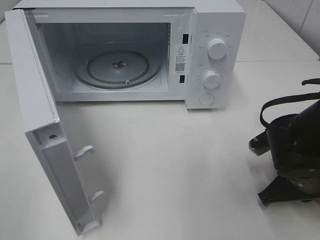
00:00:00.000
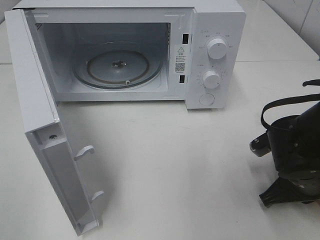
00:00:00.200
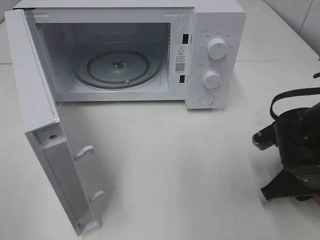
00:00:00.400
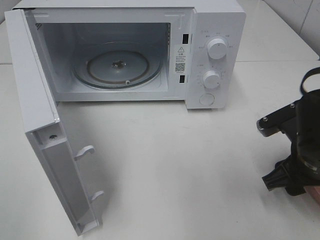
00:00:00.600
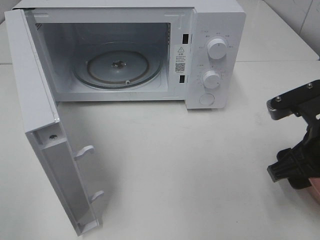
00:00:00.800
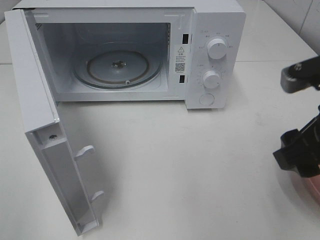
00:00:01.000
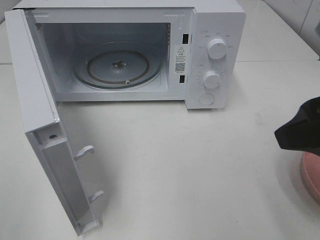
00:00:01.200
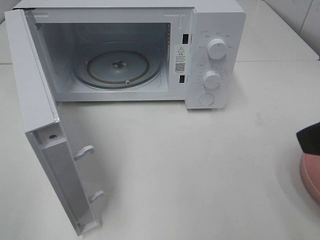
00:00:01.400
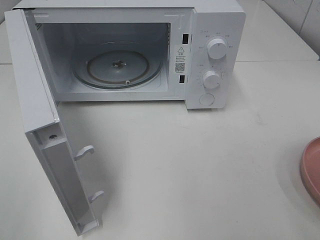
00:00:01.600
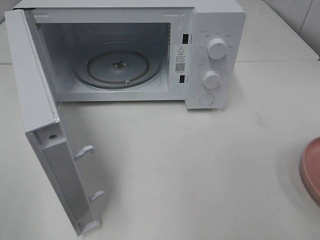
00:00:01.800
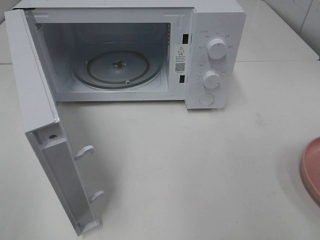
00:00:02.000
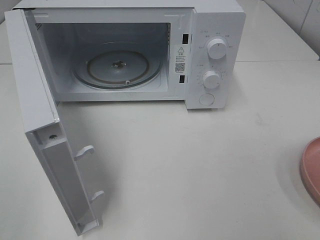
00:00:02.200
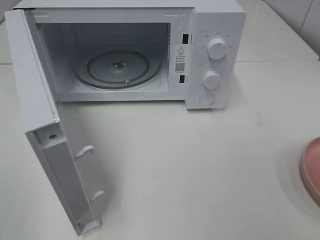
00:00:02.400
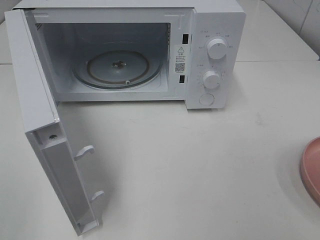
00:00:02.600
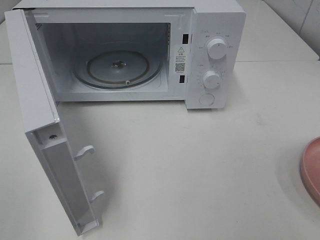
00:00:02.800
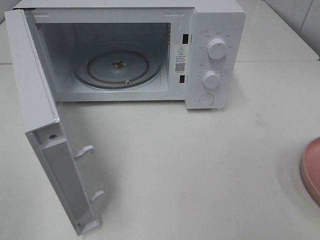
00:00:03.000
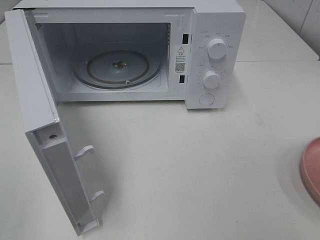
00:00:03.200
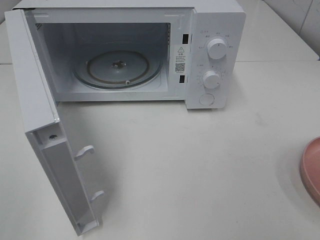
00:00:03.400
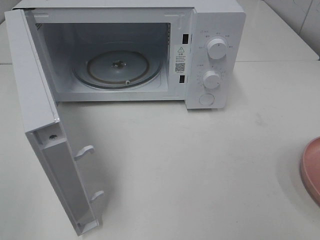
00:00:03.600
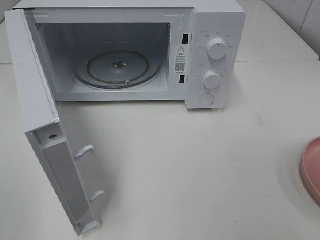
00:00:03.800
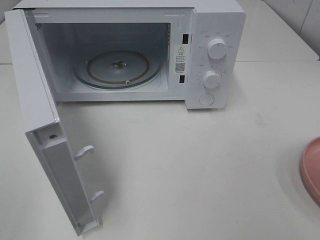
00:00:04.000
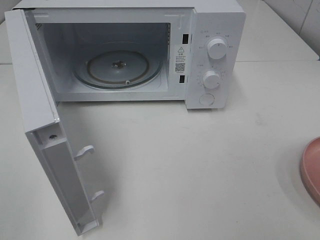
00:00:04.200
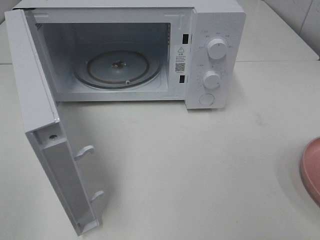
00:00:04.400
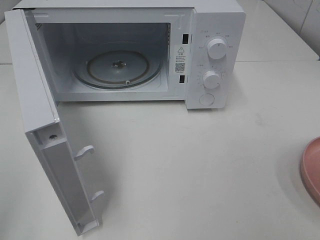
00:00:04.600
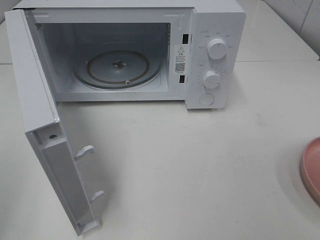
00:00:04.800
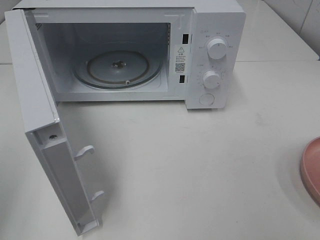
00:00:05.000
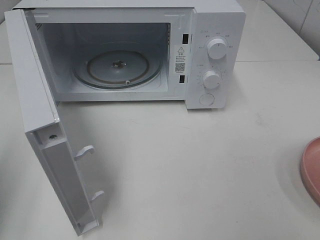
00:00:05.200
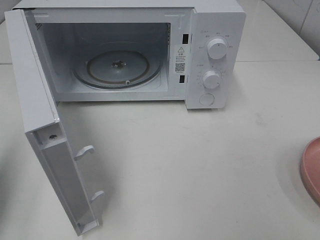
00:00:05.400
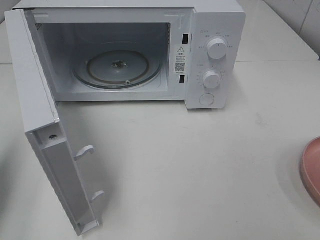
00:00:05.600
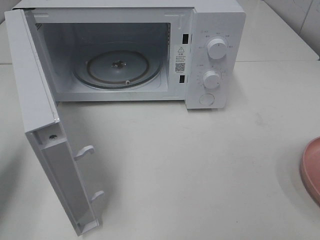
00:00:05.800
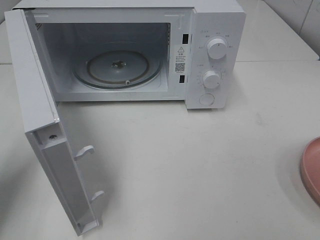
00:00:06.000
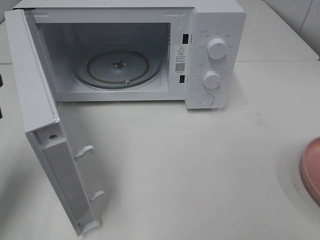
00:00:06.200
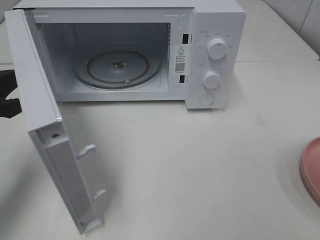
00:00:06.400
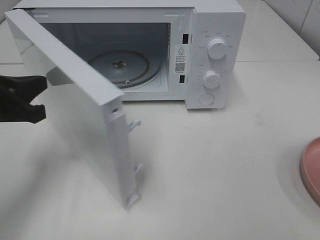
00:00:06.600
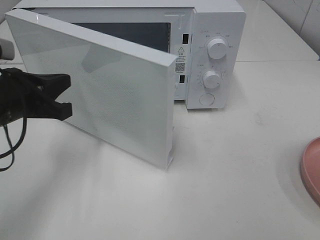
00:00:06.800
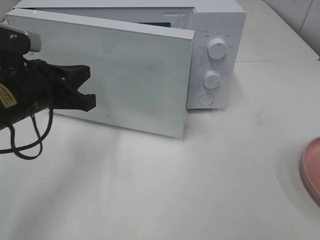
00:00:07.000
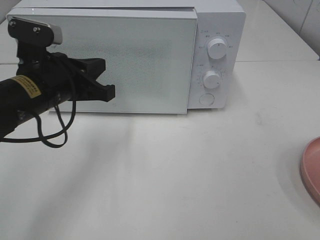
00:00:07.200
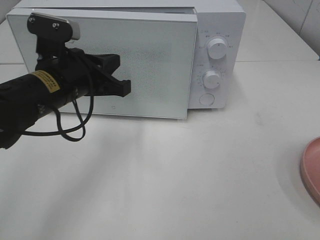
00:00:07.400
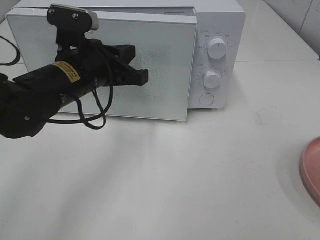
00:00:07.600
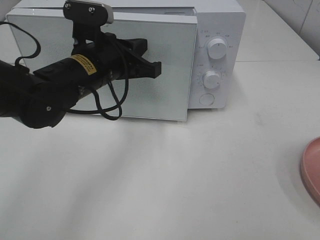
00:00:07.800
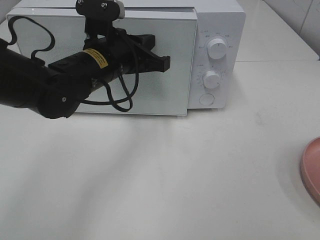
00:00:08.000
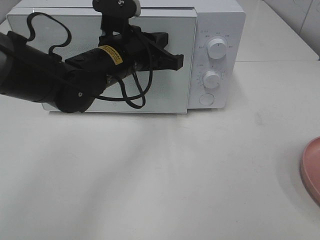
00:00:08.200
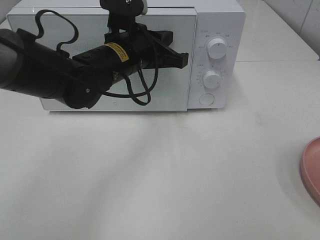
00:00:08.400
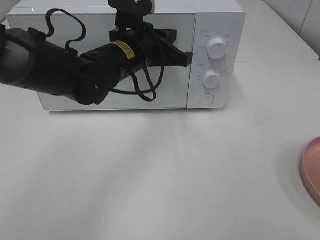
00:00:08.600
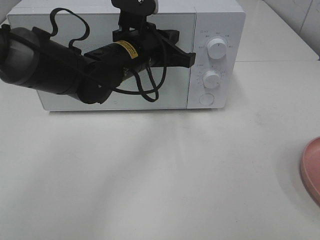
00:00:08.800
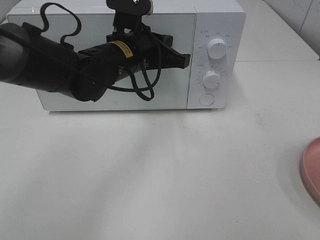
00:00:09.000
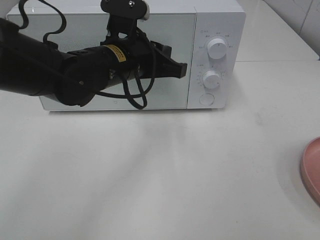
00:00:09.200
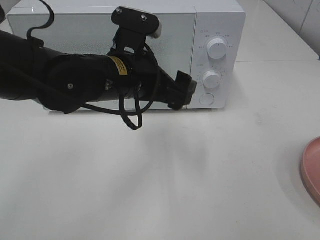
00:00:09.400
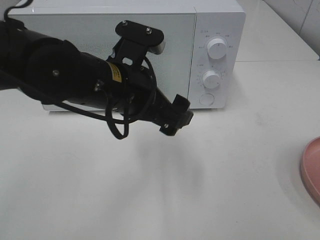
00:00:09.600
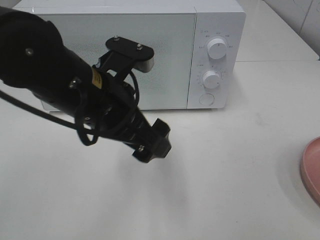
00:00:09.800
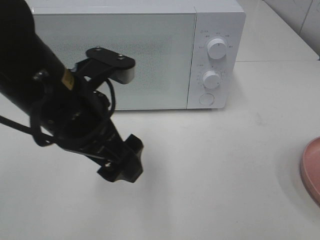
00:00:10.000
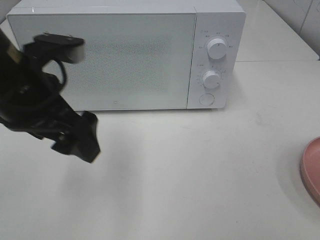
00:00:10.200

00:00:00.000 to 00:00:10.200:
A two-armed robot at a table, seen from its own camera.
Task of the whole recording: Heat the burger.
Step, 00:00:00.600 to 00:00:09.000: Left hand: close the microwave door.
00:00:00.000 to 00:00:01.400: The right gripper goes approximately 25 cm upward and backward, and opens its fingers.
00:00:01.400 to 00:00:03.000: The right gripper heads backward and to the right, covering approximately 15 cm.
00:00:03.000 to 00:00:04.400: Both grippers stay put.
00:00:04.400 to 00:00:05.800: The left gripper is displaced forward by roughly 20 cm, and closes.
00:00:05.800 to 00:00:07.200: The left gripper goes approximately 20 cm to the right and forward.
00:00:07.200 to 00:00:08.800: The left gripper heads to the right and forward, covering approximately 15 cm.
00:00:08.800 to 00:00:10.200: The left gripper travels backward, to the left and upward by about 20 cm, and opens.

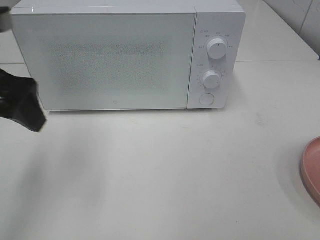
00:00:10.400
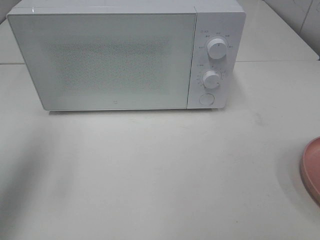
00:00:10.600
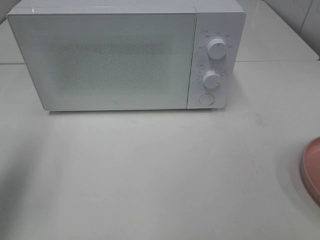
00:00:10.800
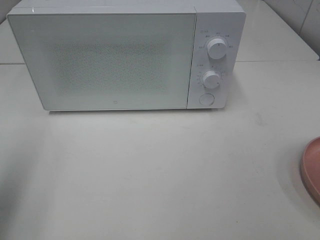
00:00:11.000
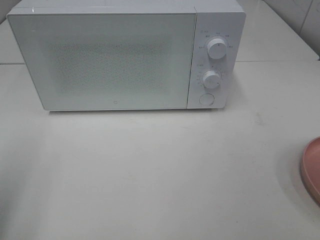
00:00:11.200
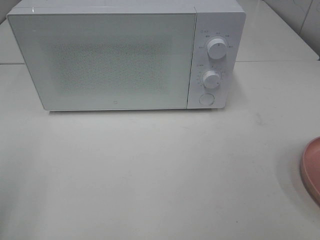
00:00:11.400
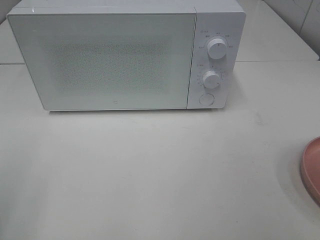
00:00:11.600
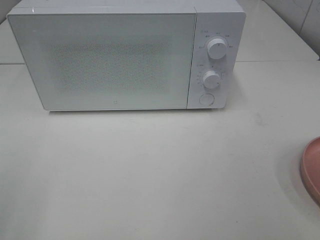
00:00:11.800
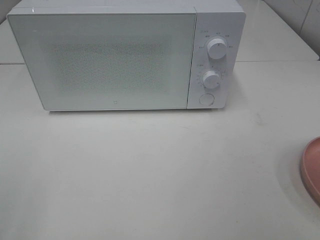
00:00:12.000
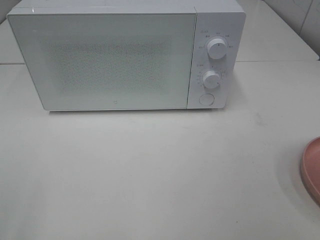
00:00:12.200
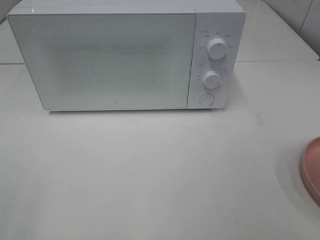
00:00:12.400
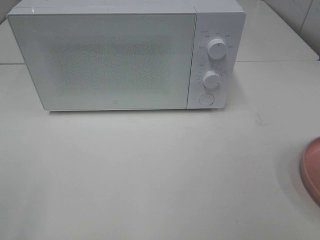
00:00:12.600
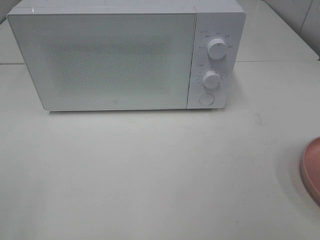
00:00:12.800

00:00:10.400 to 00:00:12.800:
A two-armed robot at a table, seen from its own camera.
Task of the whole recording: Heat the burger.
00:00:10.400 to 00:00:11.600: The left gripper is displaced backward and to the left by some 20 cm.
